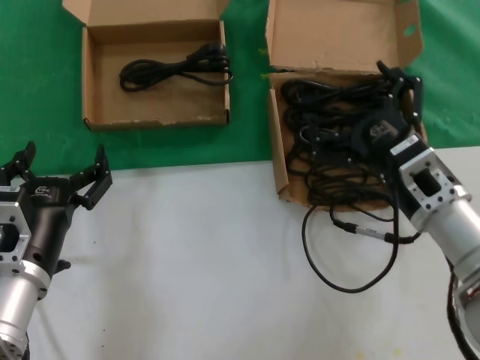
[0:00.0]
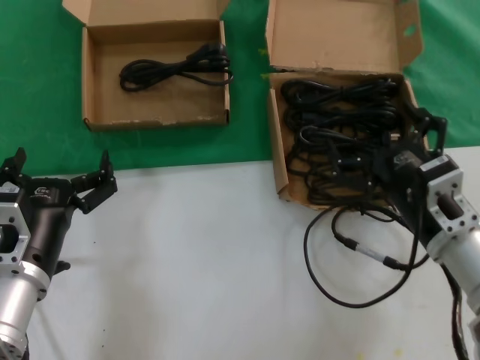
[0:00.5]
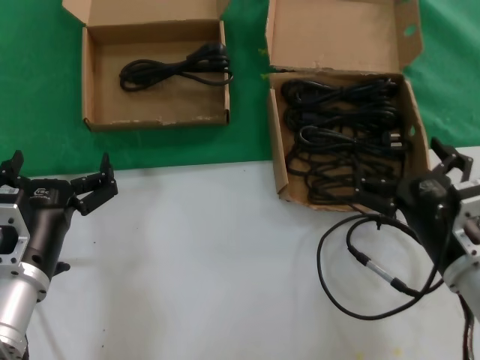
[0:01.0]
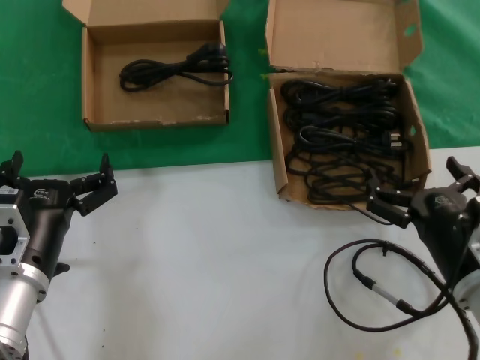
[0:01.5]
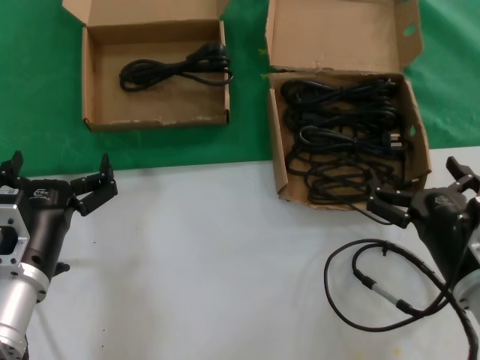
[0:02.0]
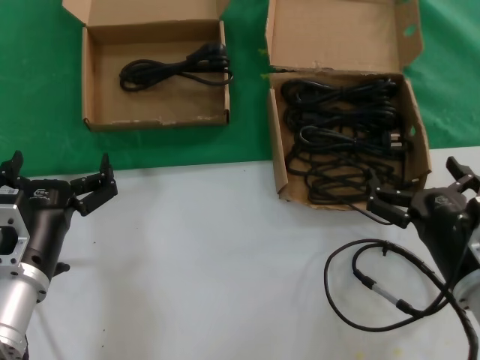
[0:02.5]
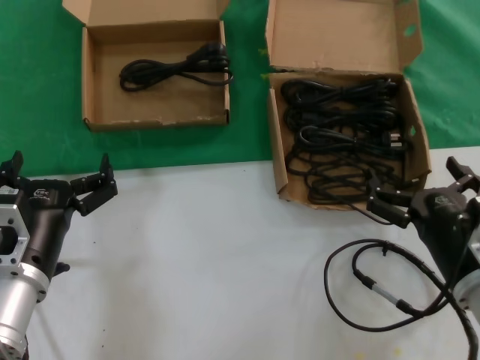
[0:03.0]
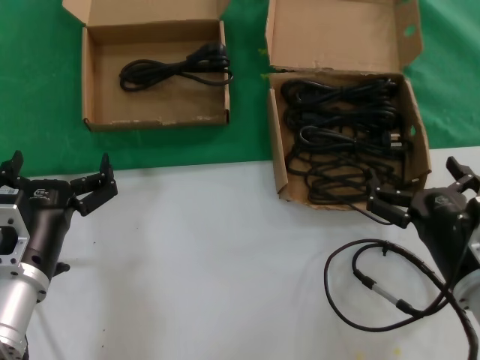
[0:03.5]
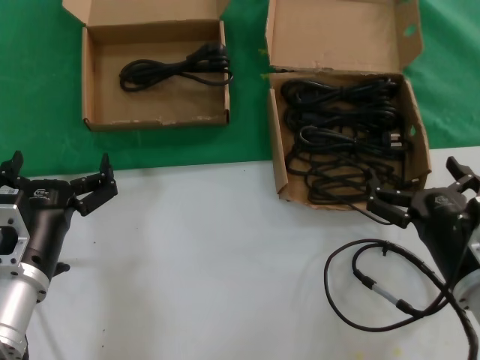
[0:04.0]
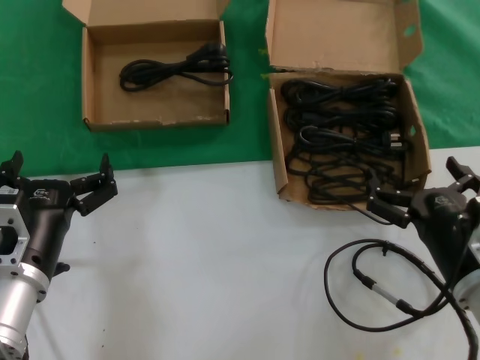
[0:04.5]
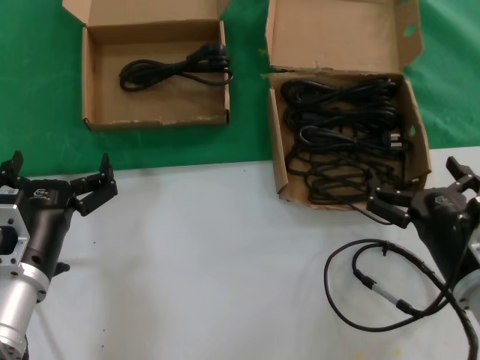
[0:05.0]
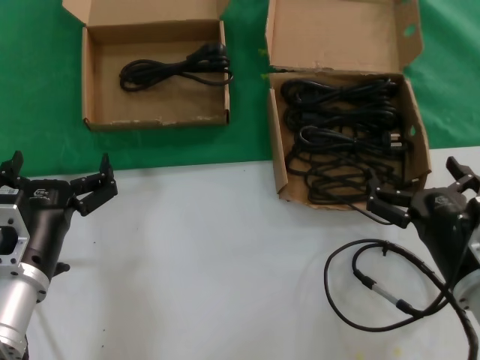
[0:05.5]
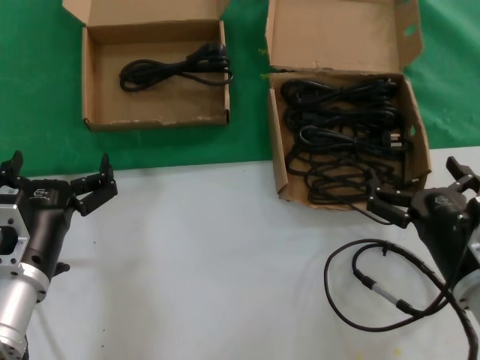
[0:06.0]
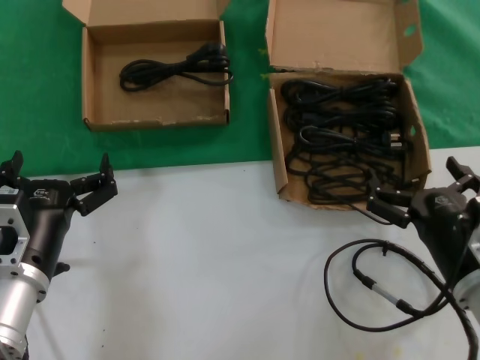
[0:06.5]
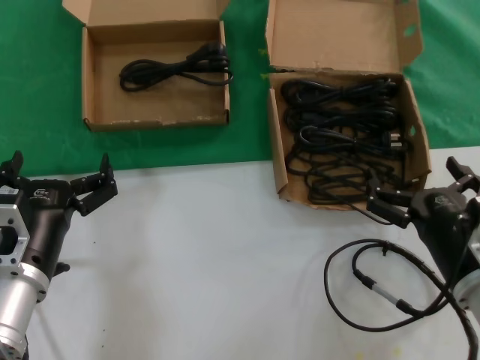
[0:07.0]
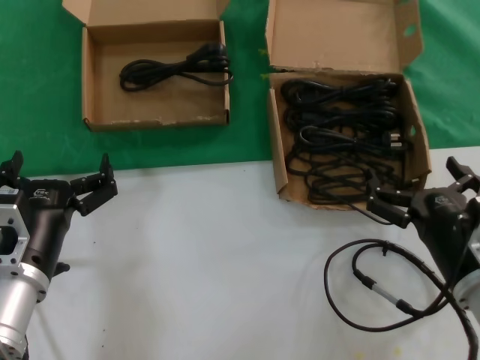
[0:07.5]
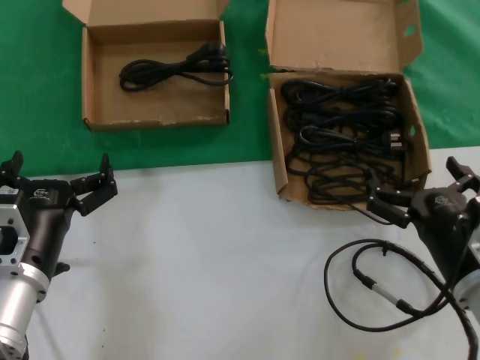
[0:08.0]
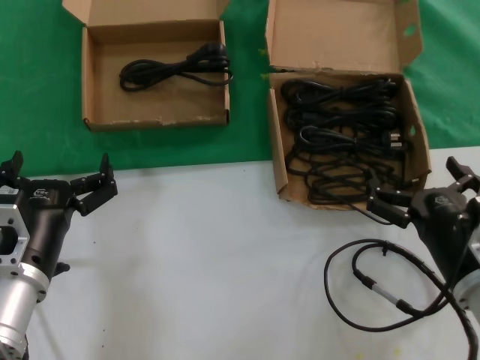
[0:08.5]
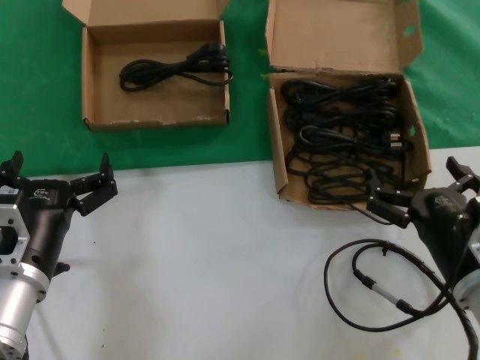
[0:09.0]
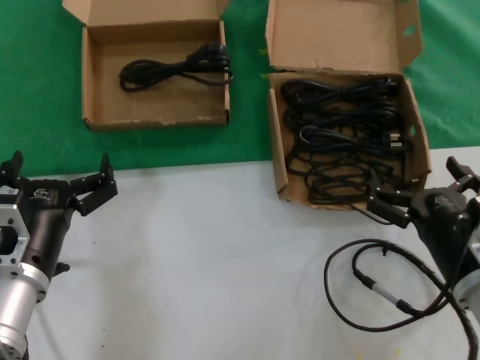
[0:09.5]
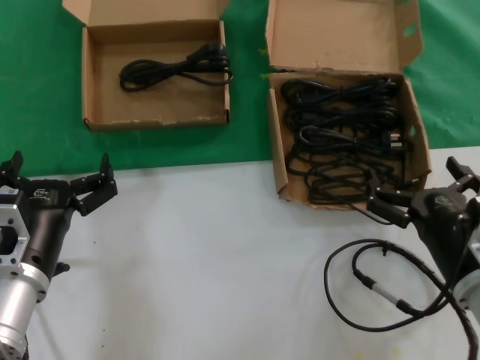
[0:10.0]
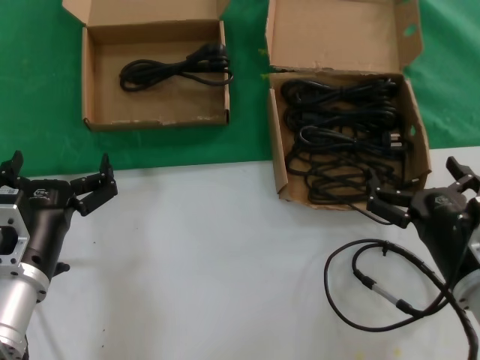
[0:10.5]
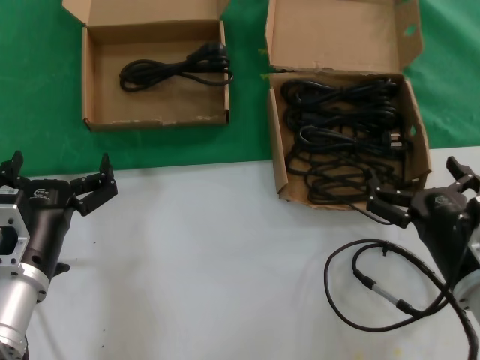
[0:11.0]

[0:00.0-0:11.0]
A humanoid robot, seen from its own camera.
Task of the whole recording: take the parts from the box containing them and put them into an empty box.
0:00.0 to 0:02.0: The right hand goes about 10 cm backward.
0:02.0 to 0:11.0: The two hands keep their place.

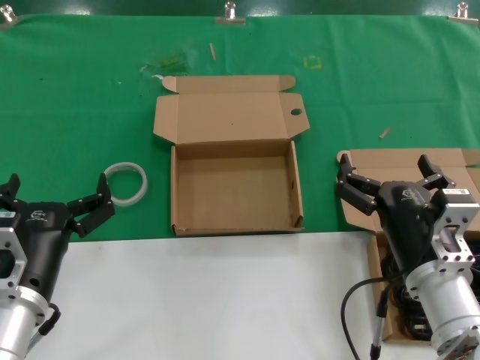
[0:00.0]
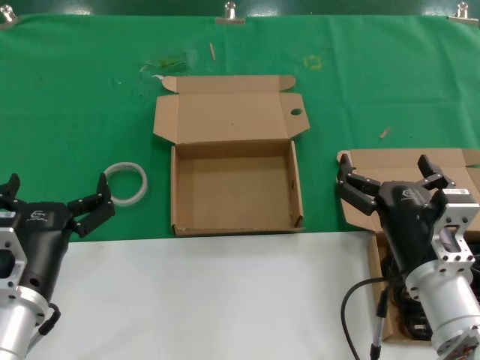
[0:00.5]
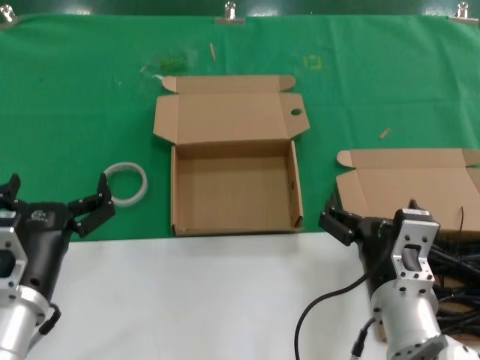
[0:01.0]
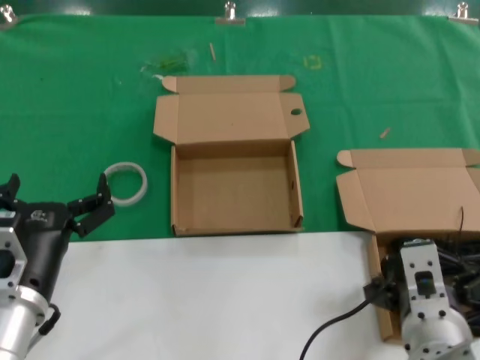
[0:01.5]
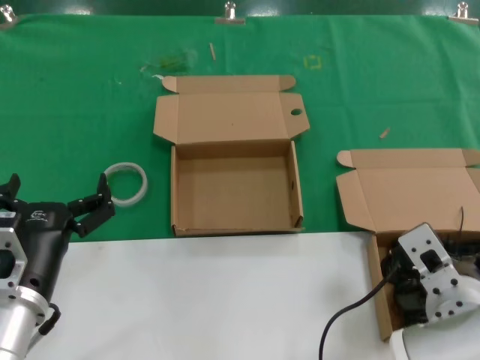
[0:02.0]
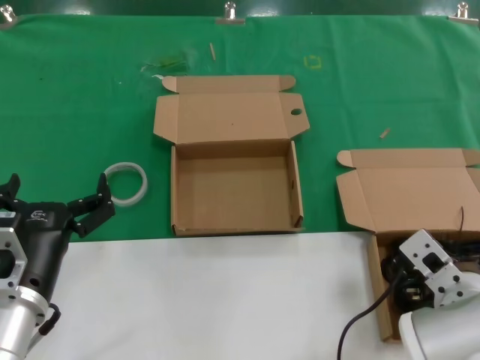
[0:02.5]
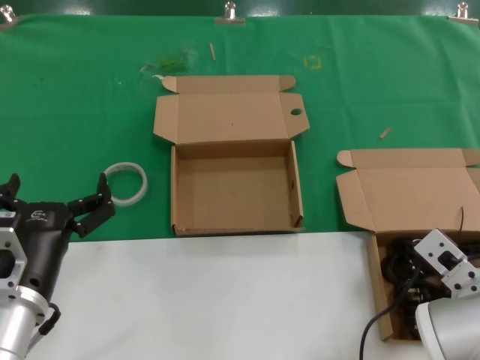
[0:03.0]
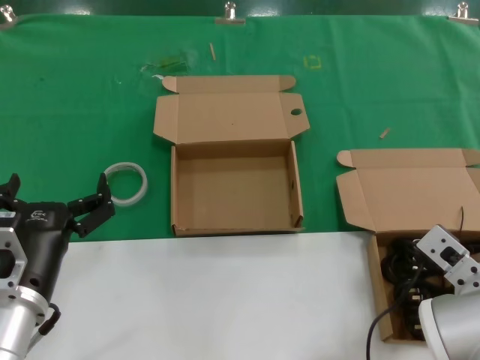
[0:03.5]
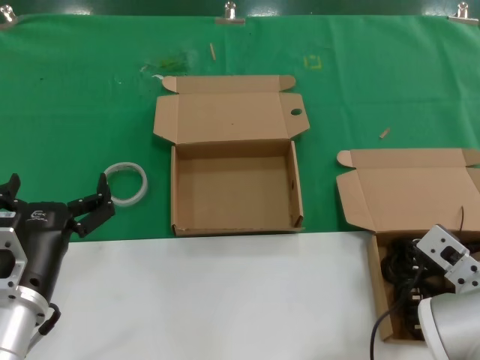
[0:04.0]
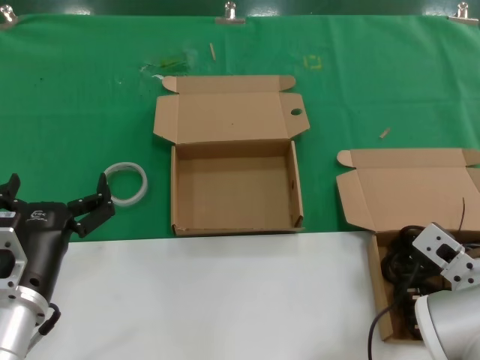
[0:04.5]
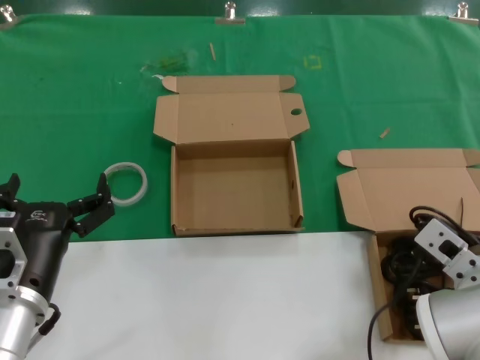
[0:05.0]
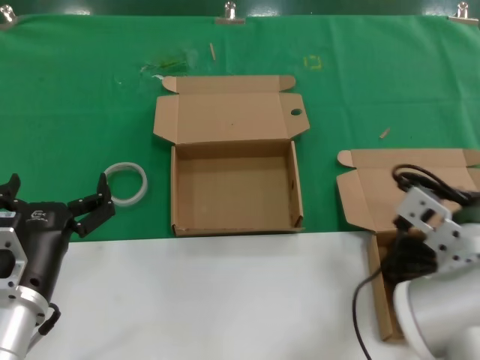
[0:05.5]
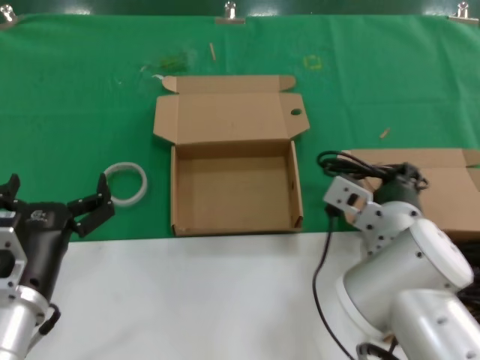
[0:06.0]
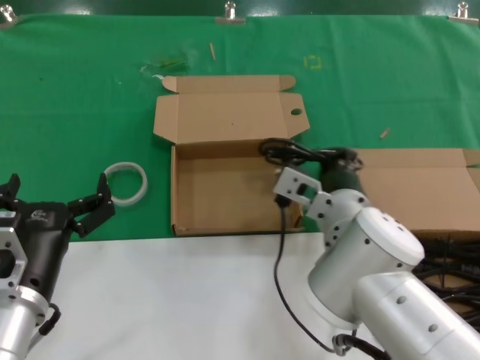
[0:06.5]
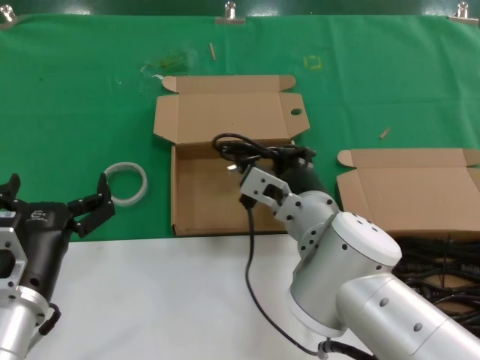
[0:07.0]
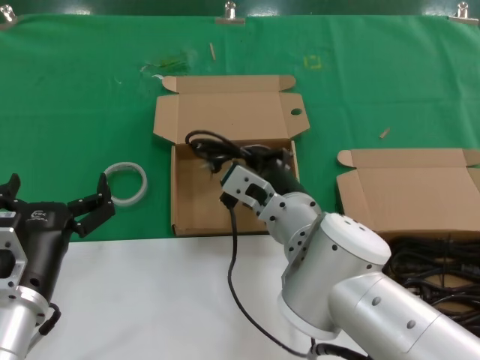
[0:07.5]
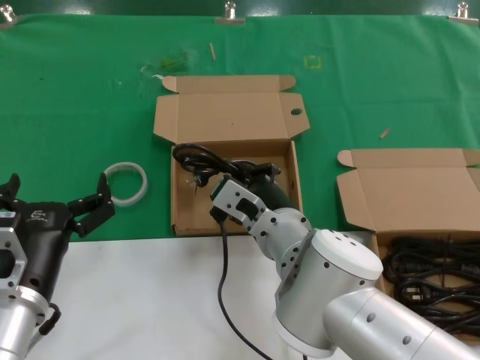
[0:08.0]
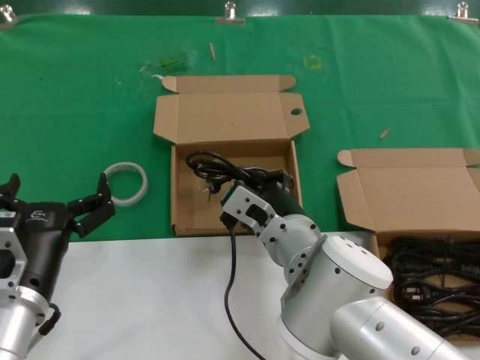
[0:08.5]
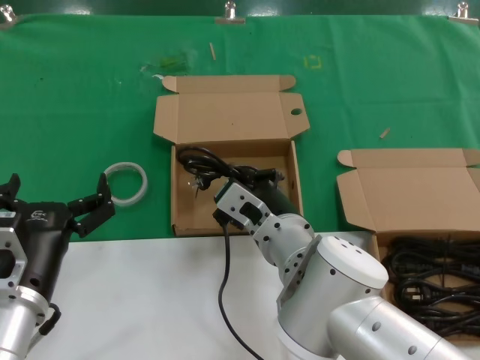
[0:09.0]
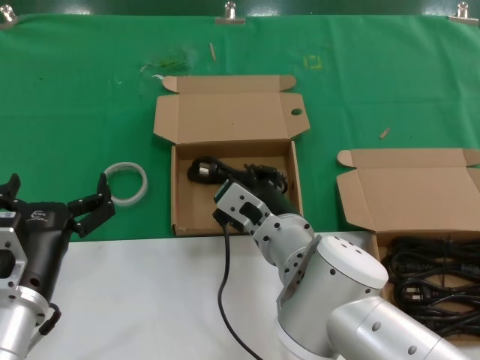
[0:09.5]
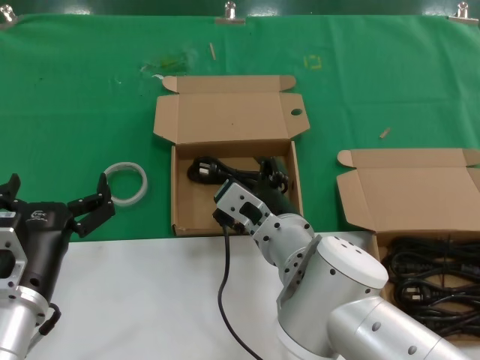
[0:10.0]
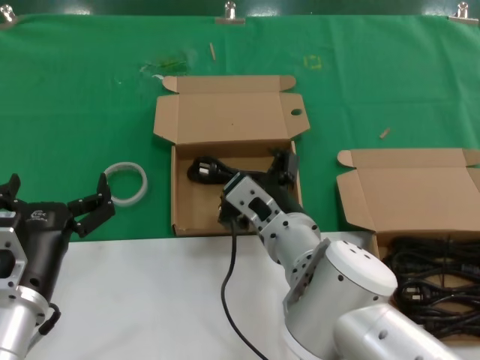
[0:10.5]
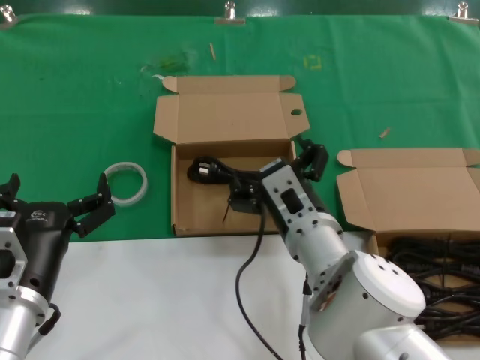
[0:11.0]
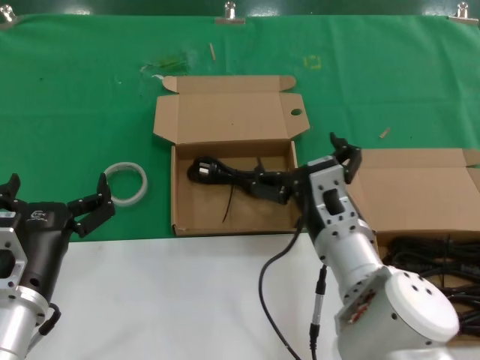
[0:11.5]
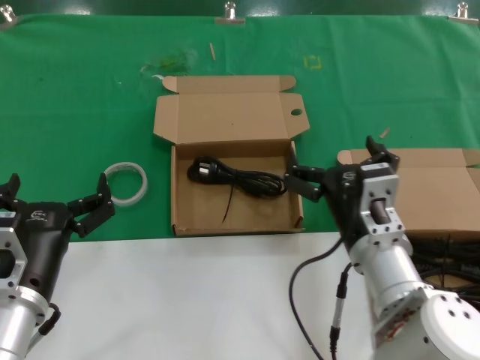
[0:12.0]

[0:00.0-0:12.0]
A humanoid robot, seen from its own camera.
Task of the whole recording: take the parts from the box containing them and put them into an empty box.
Step, 0:00.0 to 0:04.5: Grasp the data cable.
Step, 0:05.0 to 0:09.0: Place the data cable in the another box.
0:02.0 to 0:04.0: The right hand goes about 5 cm to the right.
0:04.0 to 0:06.0: The right hand shifts roughly 10 cm to the left and forward.
0:06.0 to 0:08.0: The right hand goes roughly 10 cm to the left.
0:08.0 to 0:10.0: Neither hand changes place.
0:10.0 to 0:12.0: The right hand goes roughly 10 cm to the right.

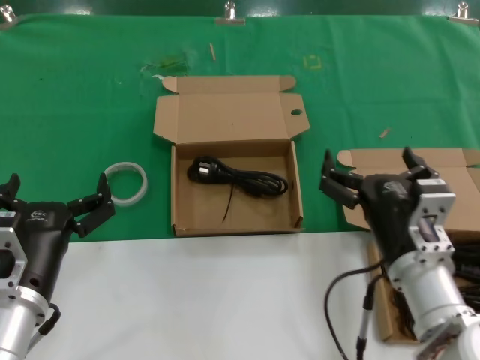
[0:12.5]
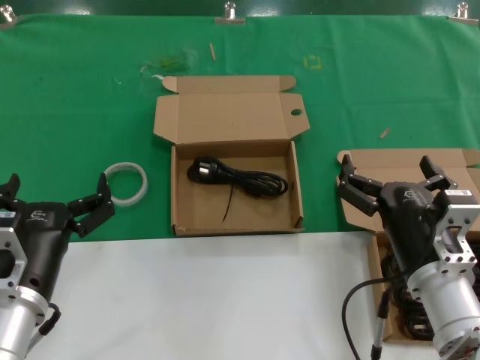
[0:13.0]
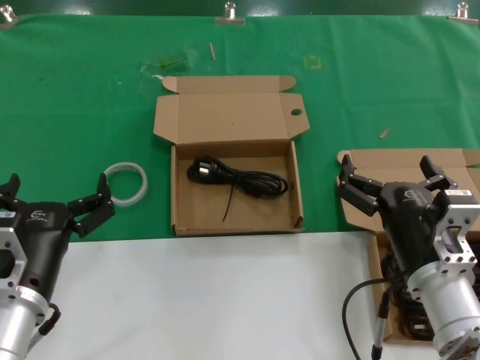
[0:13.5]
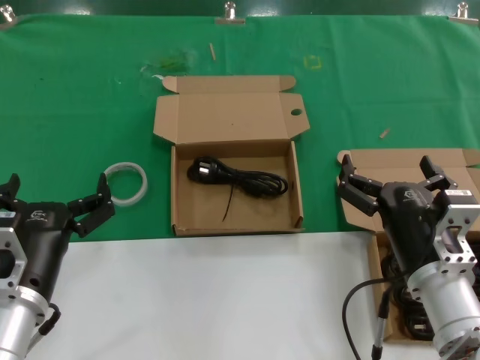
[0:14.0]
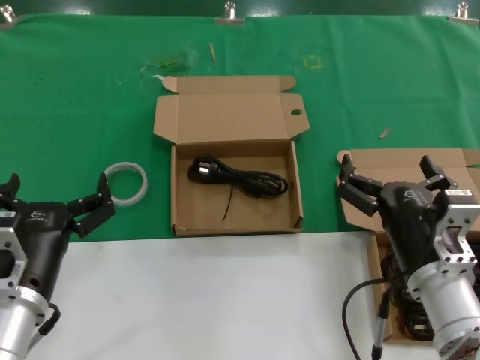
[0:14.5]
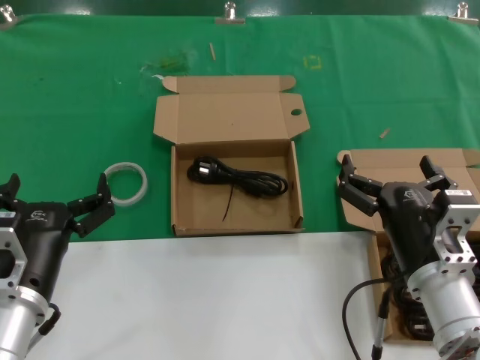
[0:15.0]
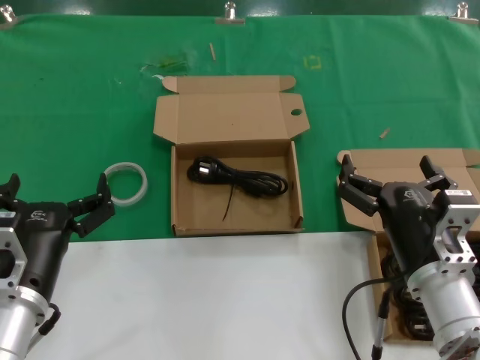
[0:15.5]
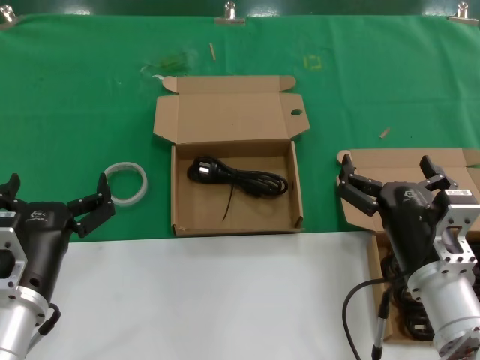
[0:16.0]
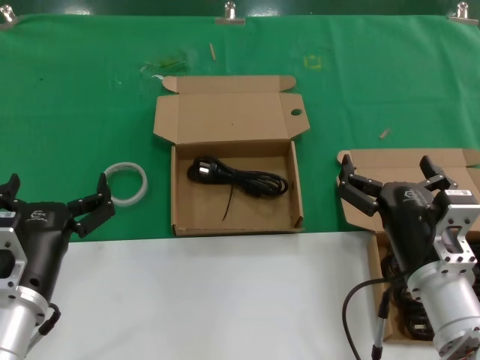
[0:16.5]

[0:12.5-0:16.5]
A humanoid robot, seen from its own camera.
Task of the whole recording: take the parts from the box containing them and put them into an empty box.
0:12.5 to 0:14.5: The hands stay close to where they were, moving slightly.
0:14.5 to 0:16.5: Both hands stay put.
